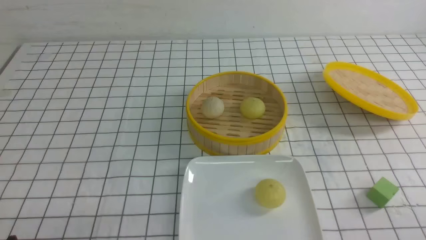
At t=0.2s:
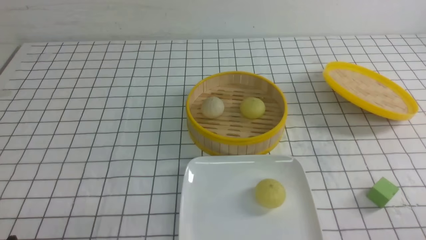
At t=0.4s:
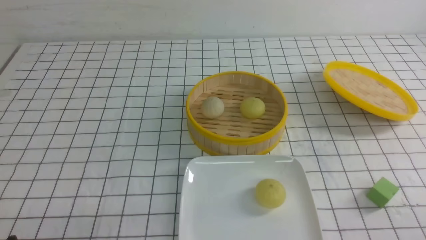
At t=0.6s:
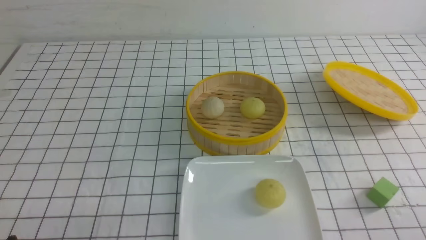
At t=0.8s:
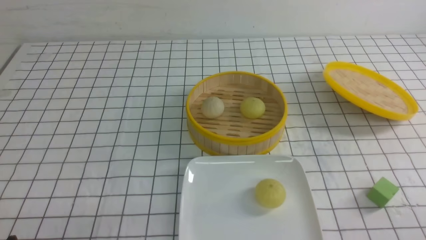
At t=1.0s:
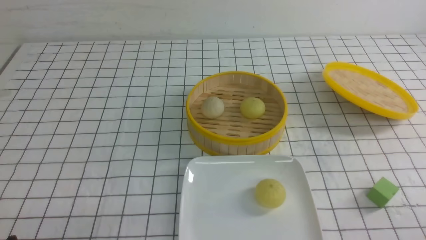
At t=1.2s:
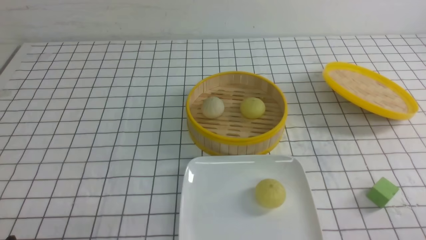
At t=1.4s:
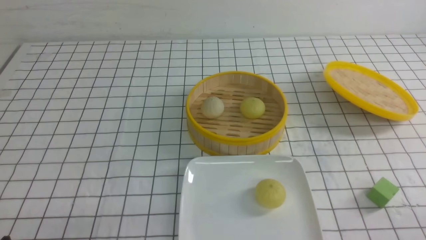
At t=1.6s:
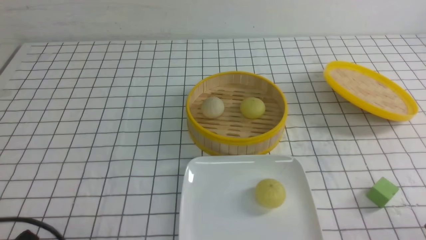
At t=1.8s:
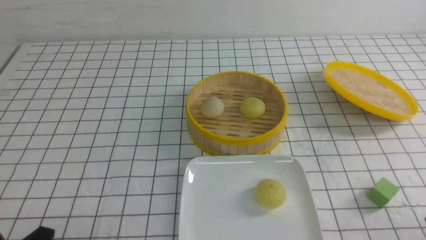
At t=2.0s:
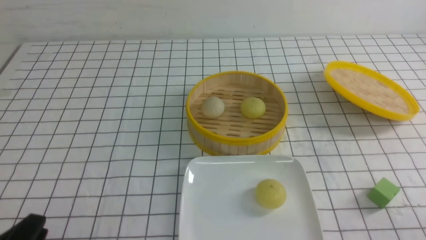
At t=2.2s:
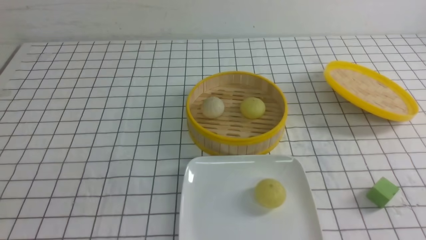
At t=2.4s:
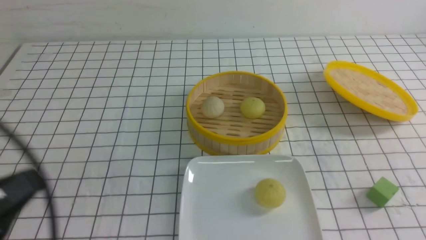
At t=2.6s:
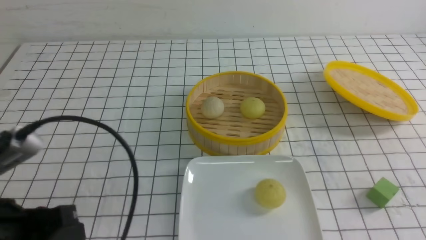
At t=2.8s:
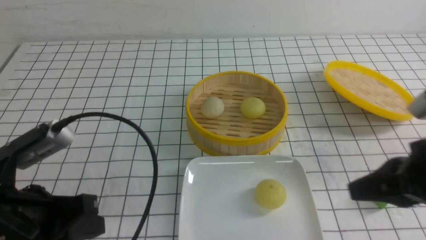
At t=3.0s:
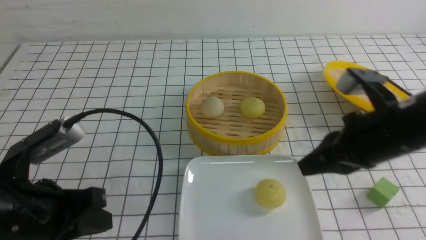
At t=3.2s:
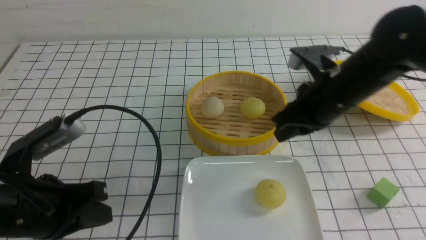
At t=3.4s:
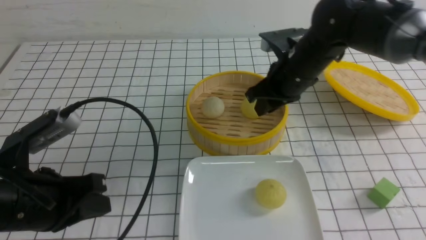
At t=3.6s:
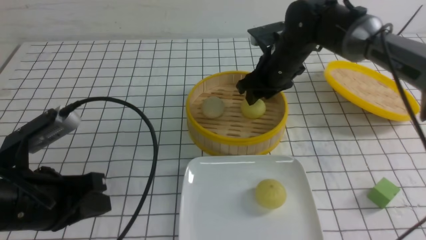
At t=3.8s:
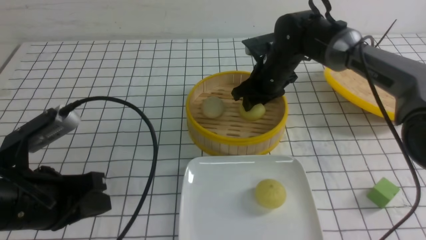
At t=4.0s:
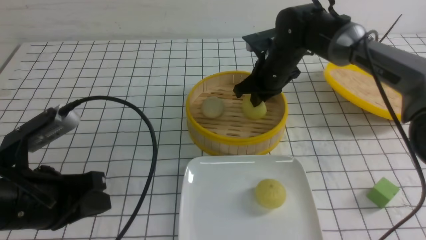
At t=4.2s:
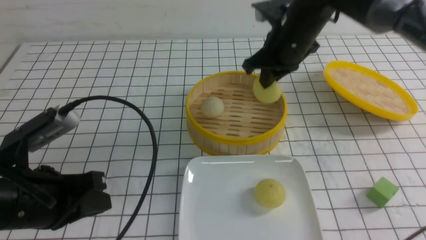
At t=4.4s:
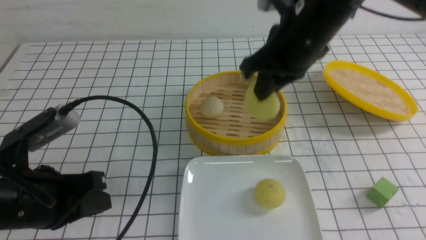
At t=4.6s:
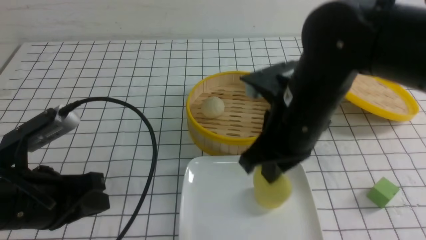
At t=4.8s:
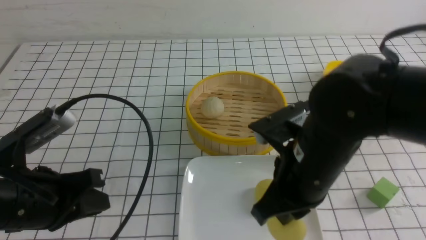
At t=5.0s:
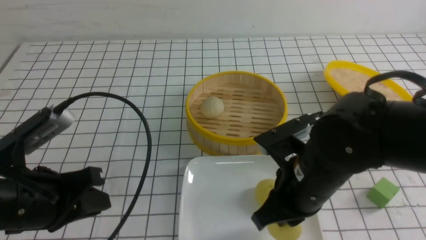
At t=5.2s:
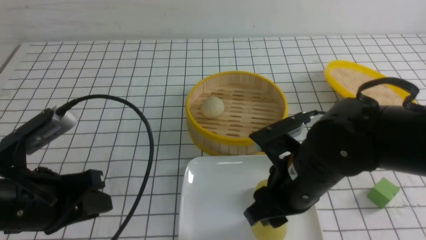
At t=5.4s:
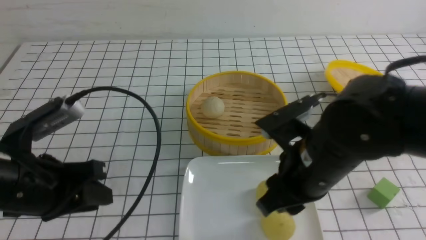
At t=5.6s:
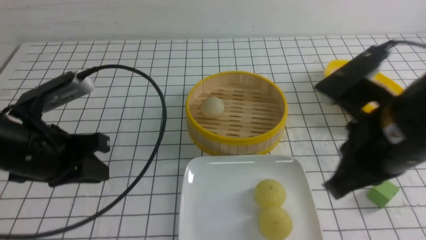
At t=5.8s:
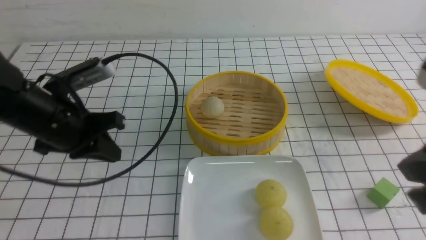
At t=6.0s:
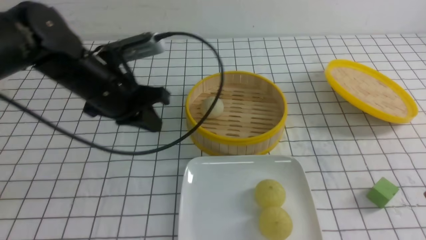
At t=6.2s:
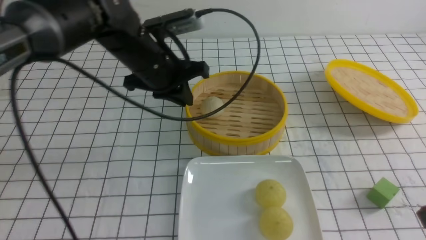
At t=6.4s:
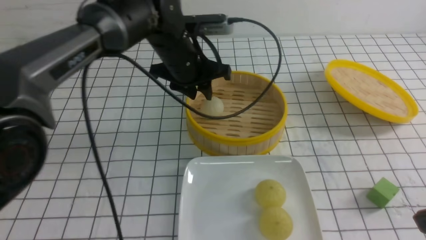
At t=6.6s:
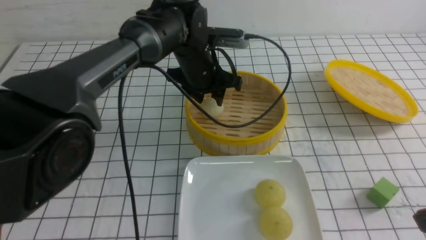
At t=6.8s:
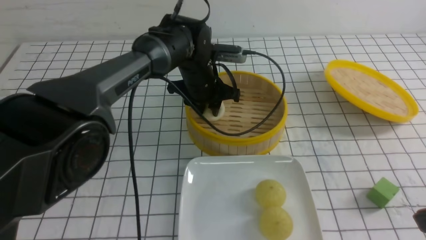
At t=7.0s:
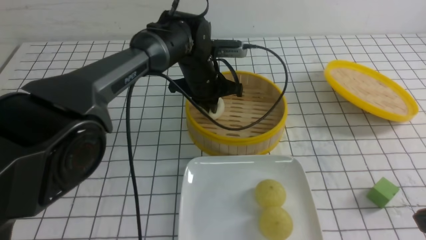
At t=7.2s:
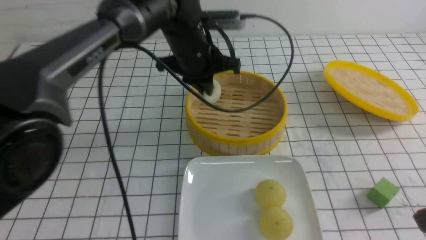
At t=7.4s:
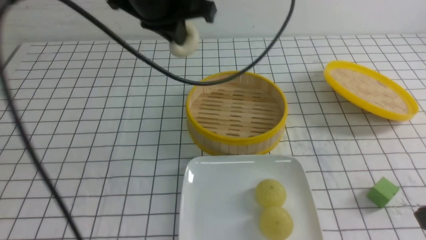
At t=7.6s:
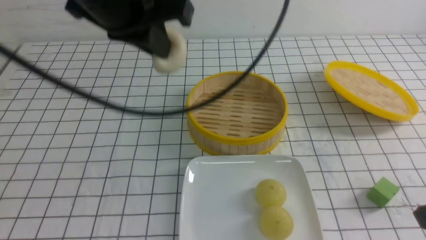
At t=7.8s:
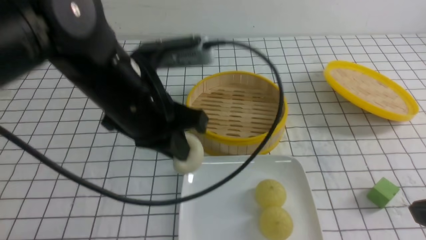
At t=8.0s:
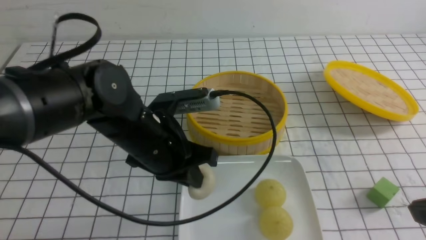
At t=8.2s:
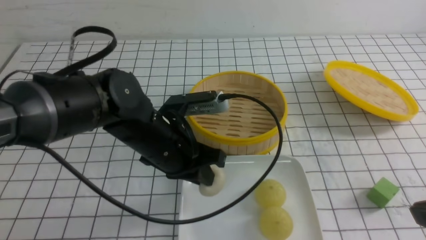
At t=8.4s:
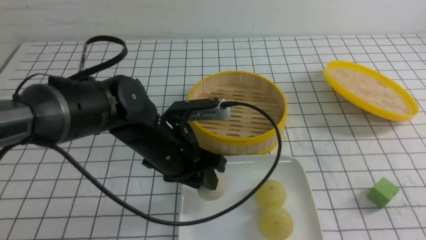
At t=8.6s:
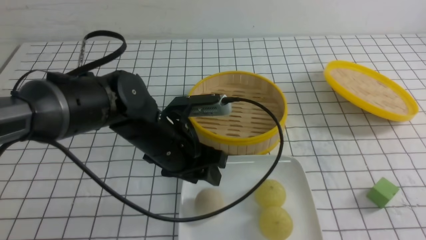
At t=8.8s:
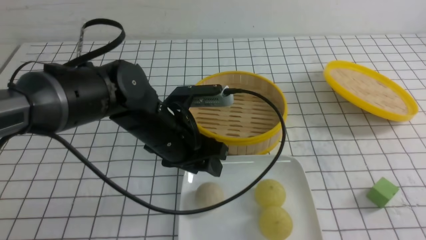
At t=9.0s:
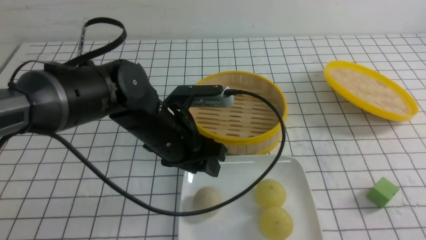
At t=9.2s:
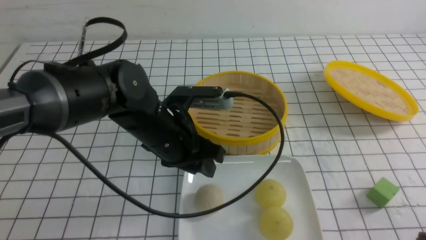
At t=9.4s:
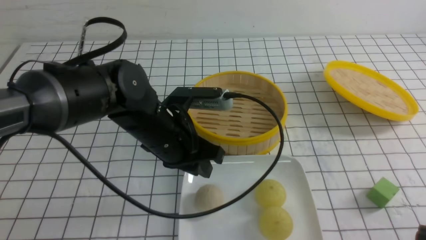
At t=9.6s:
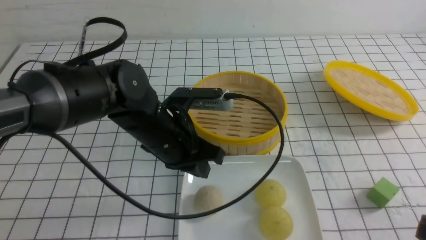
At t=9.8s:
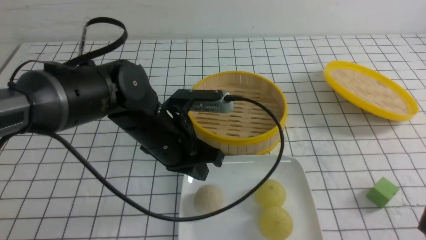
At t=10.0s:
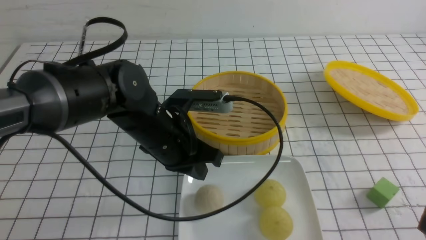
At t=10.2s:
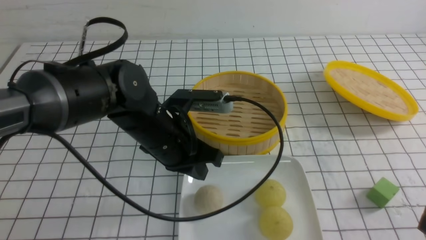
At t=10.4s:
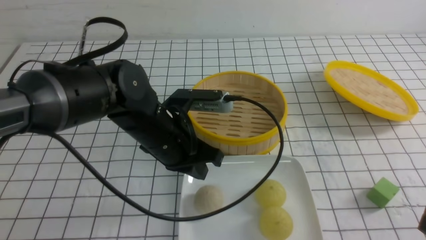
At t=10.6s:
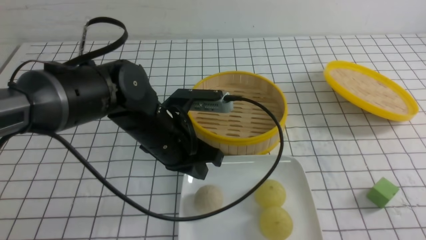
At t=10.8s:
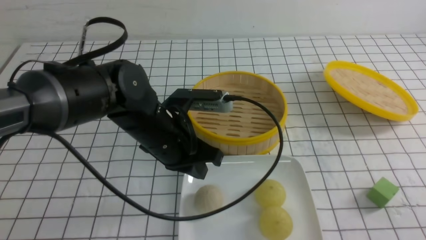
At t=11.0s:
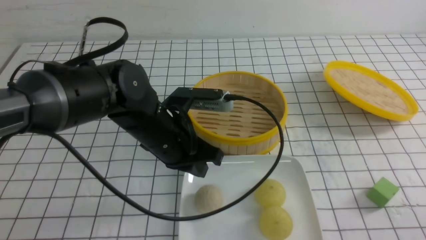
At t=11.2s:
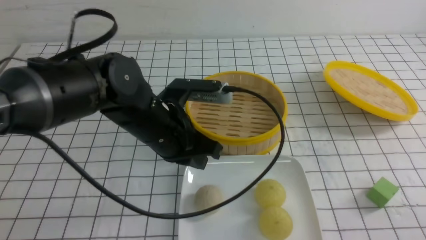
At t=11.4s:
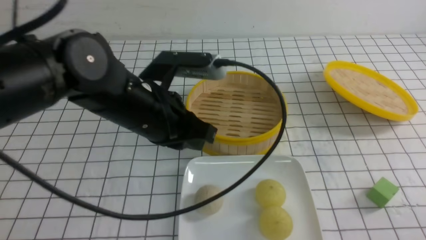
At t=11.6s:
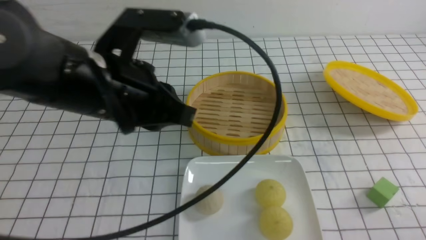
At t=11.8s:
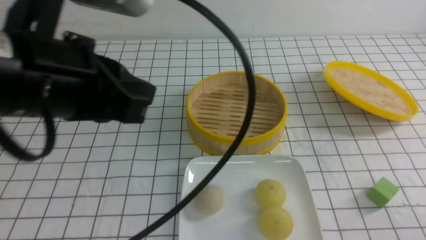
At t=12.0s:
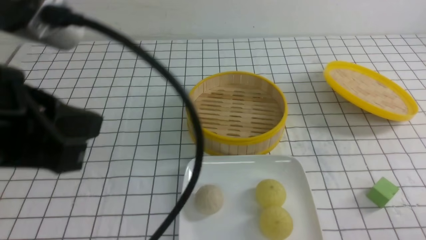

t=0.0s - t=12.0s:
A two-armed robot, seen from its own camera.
Step, t=0.0s - t=3.8s: use the right arm to grab the steamed stuffed bun that is closest to it.
Step, t=4.2s - t=5.2s: use the right arm to put the steamed stuffed bun into the plate.
Step, t=5.4s - t=7.0s: use the left arm to grab the steamed stuffed bun that is closest to it.
Step, t=7.2s - t=8.4s: use the left arm to put the steamed stuffed bun into the plate.
t=1.6s - t=3.0s: The right gripper goes about 25 cm forward, upward and to the left, and closes. The left gripper moves forward and upward, approximately 15 cm, and closes its fingers.
t=3.0s - t=4.4s: The right gripper heads to the left and forward, covering roughly 10 cm, and opens, then closes again.
t=4.4s - t=6.0s: The right gripper travels backward and to the right by some 25 cm, and opens and closes again, while the left gripper travels forward and to the right by roughly 20 cm.
t=6.0s - t=7.6s: The left gripper shifts approximately 10 cm upward and to the right, and opens, then closes once more.
t=7.6s - t=9.0s: The left gripper is displaced downward by about 15 cm, and opens; the right gripper moves backward, roughly 5 cm.
t=9.0s - t=10.4s: The left gripper closes its fingers.
t=10.4s - t=12.0s: The left gripper moves upward, backward and to the left, about 25 cm. The right gripper goes some 10 cm downward.

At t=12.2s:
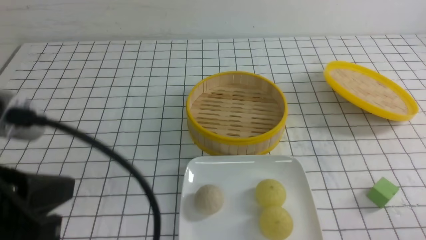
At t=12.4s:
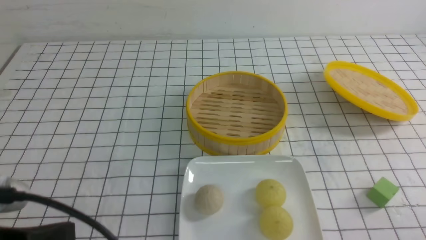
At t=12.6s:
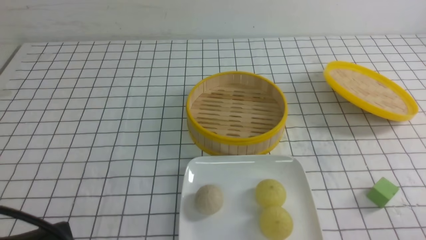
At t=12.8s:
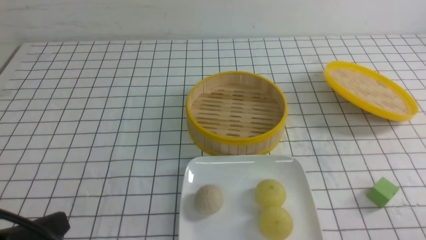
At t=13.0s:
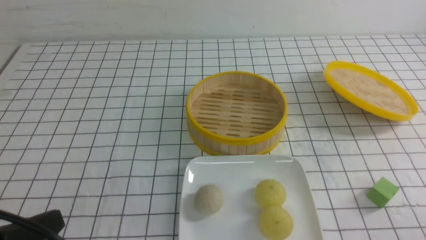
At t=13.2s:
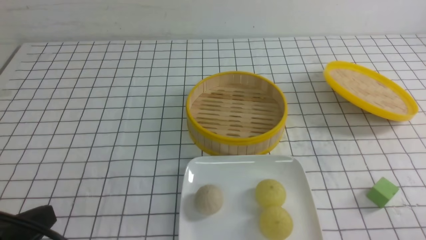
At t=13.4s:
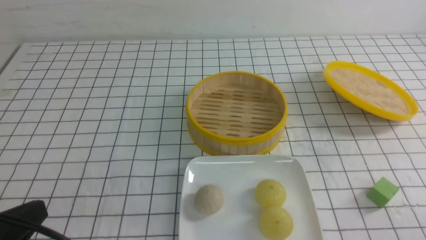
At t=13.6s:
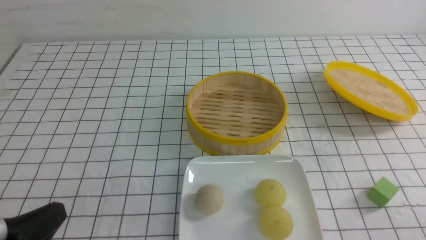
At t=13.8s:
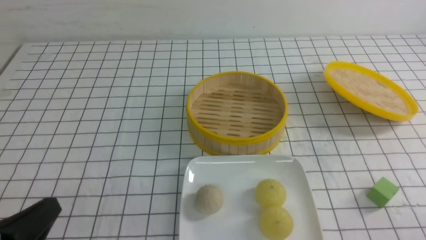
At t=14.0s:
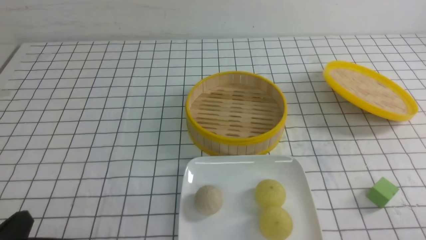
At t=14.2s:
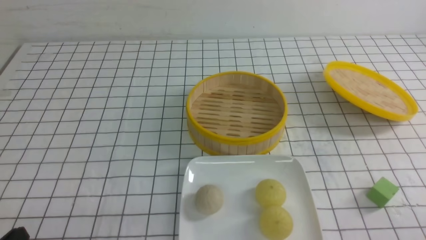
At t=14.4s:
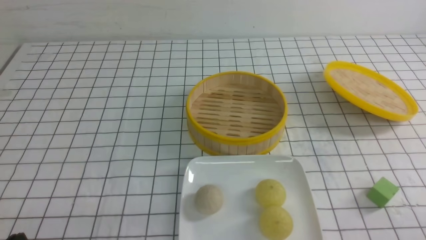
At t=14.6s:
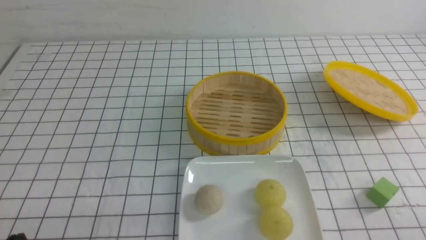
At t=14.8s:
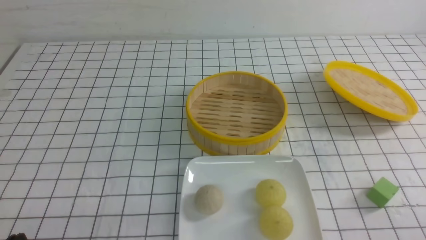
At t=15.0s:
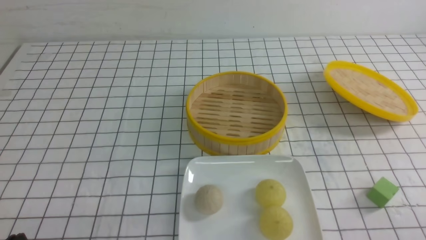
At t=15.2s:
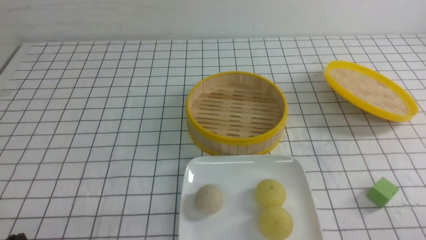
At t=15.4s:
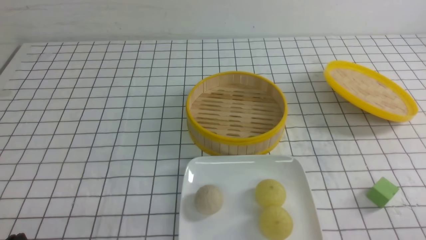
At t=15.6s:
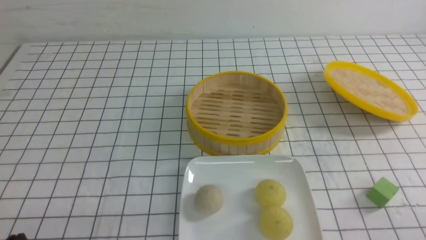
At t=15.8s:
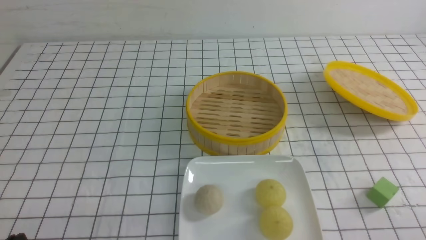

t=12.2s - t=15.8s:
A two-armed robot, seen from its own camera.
t=12.2s - t=14.0s: The left gripper heads downward, covering approximately 15 cm.
